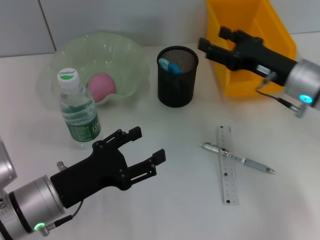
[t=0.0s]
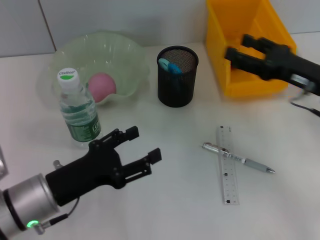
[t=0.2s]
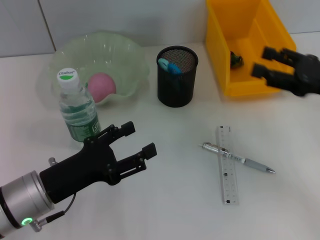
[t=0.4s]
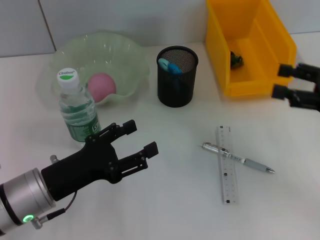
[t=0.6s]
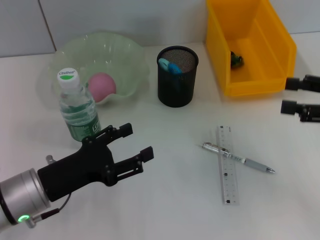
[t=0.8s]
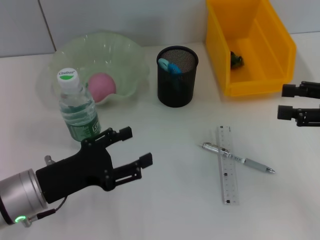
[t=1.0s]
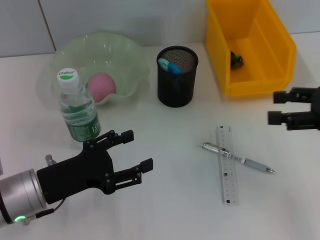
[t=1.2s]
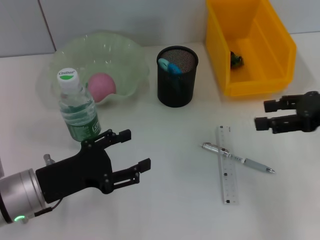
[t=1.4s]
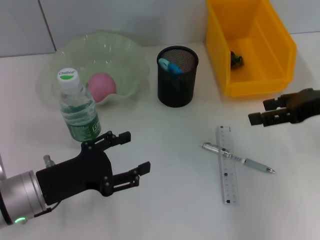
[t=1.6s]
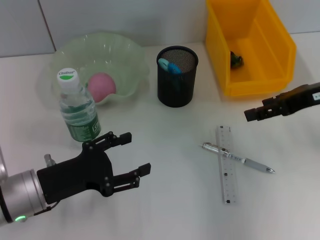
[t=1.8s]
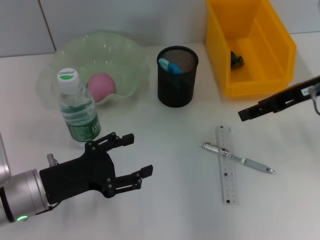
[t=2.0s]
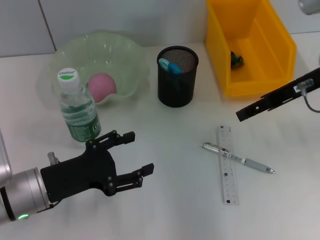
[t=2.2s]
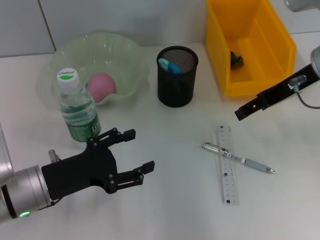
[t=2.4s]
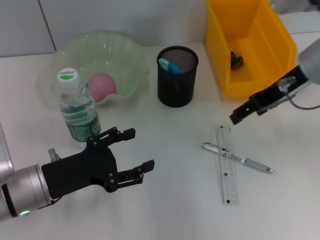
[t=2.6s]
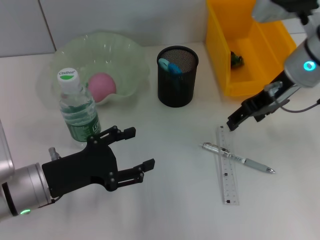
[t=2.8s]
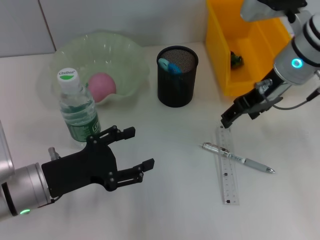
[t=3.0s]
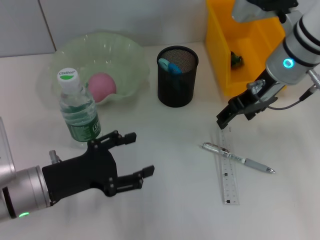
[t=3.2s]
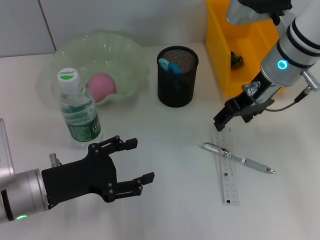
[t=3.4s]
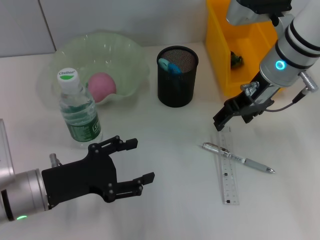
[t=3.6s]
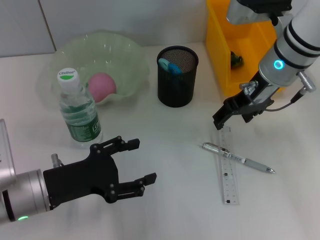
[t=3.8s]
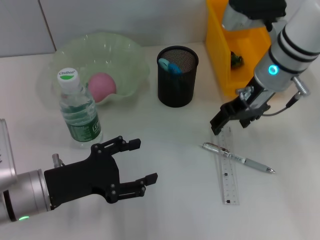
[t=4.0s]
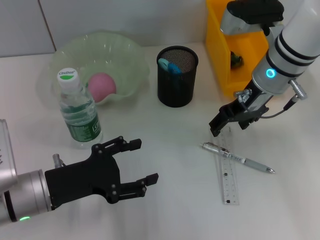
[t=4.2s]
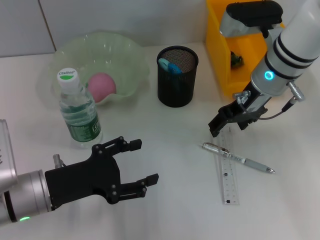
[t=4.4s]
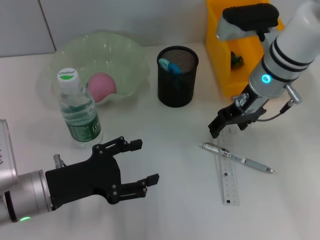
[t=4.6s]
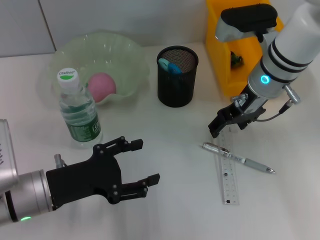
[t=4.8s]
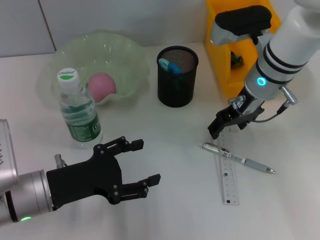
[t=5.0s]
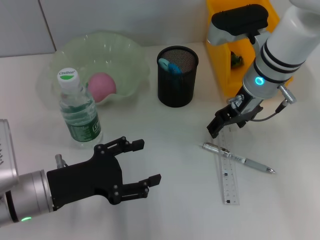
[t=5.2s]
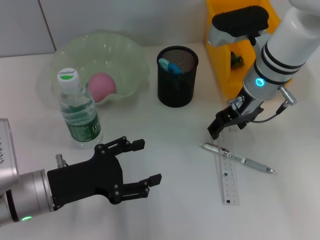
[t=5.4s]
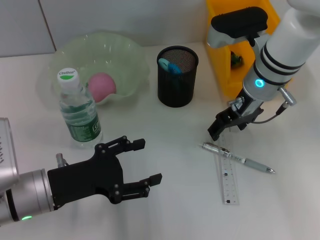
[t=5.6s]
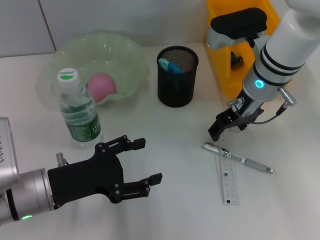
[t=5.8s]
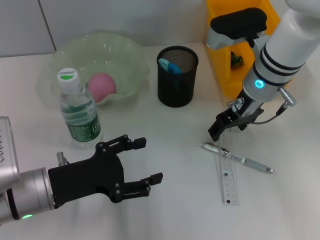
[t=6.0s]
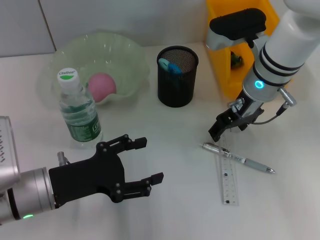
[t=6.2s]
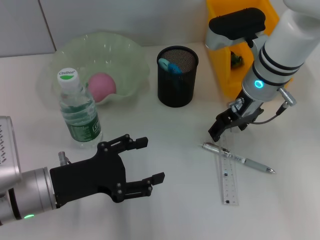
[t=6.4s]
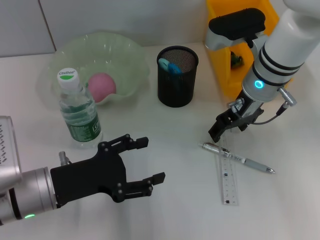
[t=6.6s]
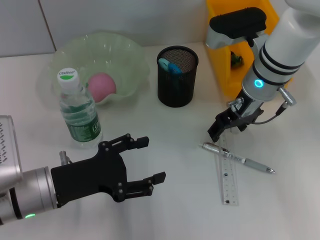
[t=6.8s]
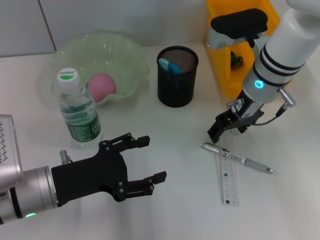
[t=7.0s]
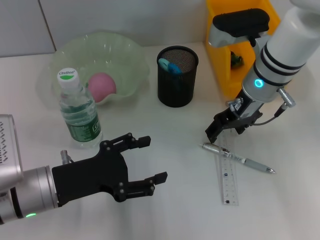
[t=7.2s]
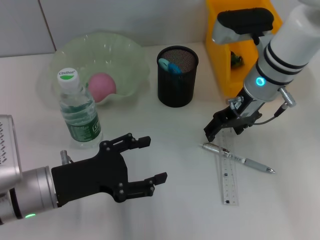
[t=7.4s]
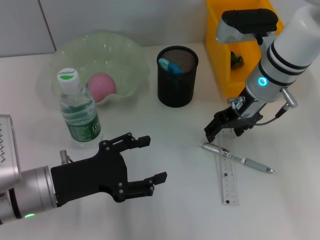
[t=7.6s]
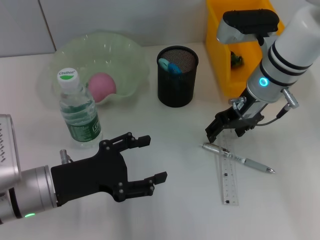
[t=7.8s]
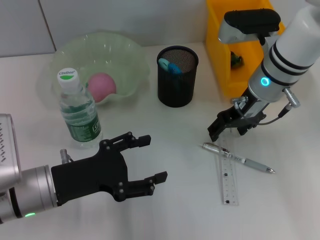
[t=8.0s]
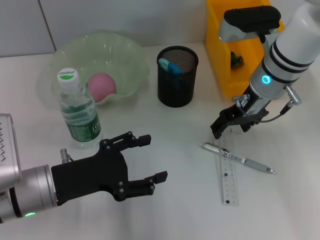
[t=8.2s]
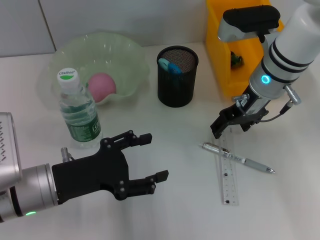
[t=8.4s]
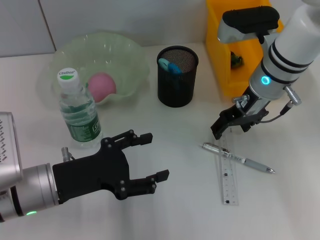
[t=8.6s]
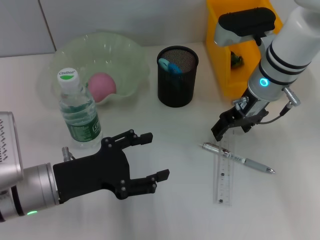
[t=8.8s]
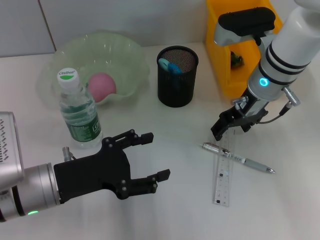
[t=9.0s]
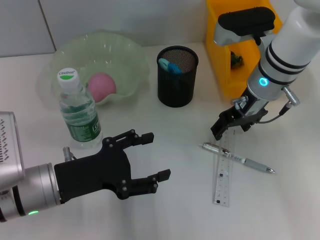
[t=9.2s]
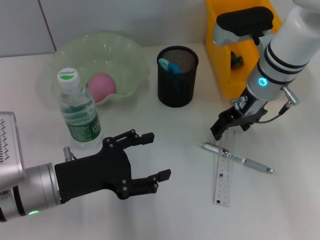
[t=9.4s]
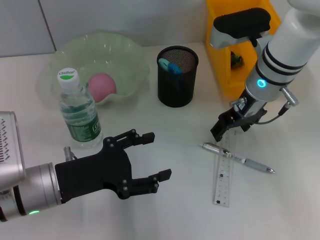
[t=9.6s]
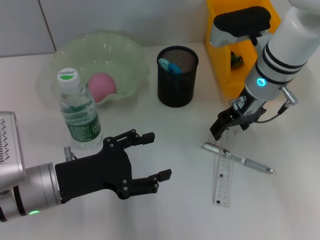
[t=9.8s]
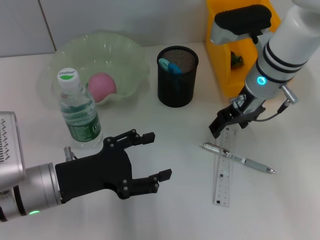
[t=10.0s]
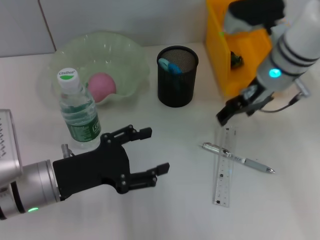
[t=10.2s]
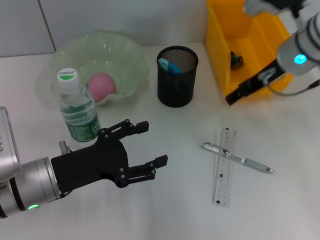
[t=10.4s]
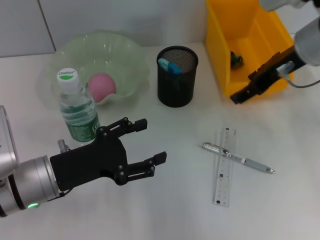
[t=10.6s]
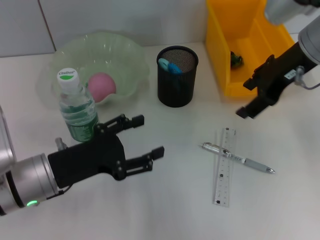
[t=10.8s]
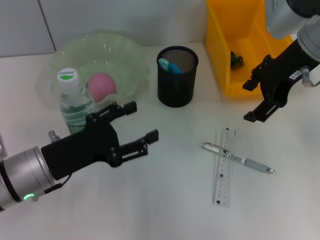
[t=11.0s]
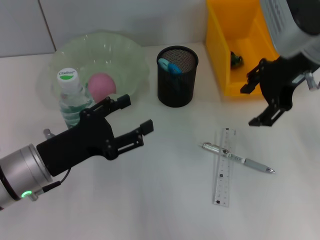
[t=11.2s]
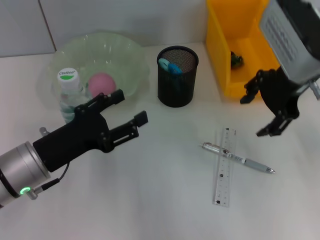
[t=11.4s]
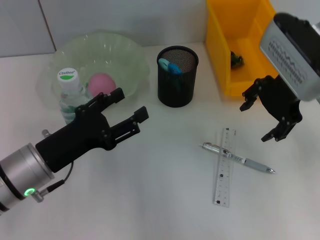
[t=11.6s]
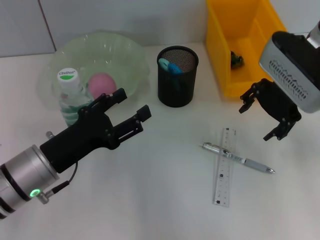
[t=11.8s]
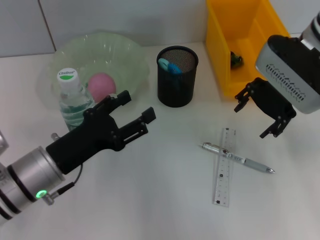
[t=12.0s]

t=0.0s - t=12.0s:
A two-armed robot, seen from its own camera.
t=0.0s - t=1.6s: The right gripper moves upward and to the right, some 10 cm.
t=1.6s - t=3.0s: The right gripper goes some 15 cm to the left and forward.
t=3.0s - t=9.0s: The grippers stay close to where they were, moving slightly.
t=9.0s - t=10.4s: The right gripper moves some 5 cm.

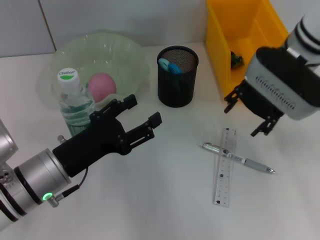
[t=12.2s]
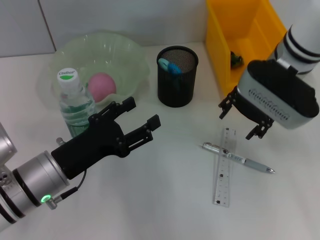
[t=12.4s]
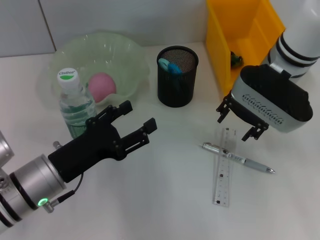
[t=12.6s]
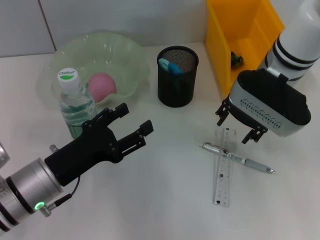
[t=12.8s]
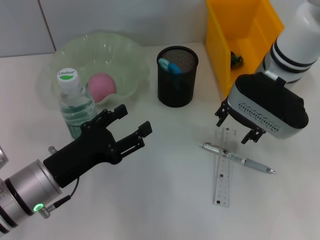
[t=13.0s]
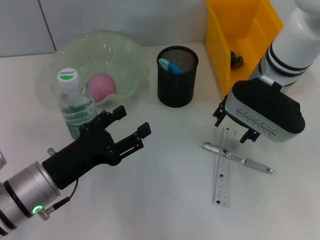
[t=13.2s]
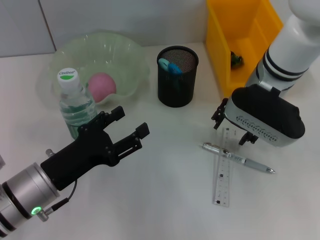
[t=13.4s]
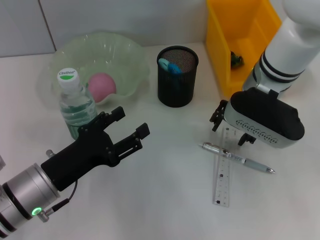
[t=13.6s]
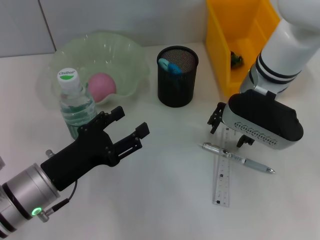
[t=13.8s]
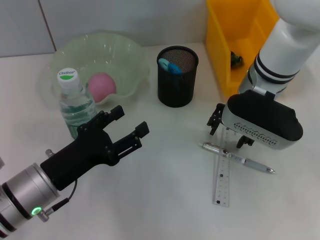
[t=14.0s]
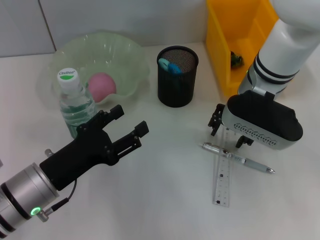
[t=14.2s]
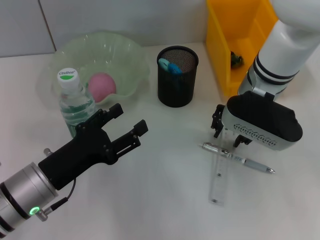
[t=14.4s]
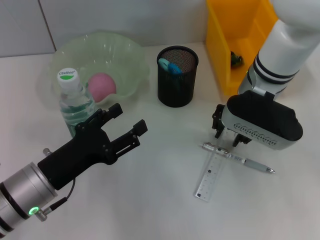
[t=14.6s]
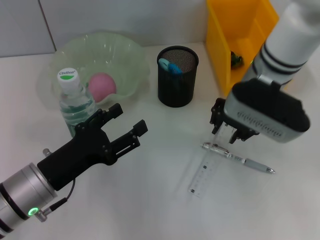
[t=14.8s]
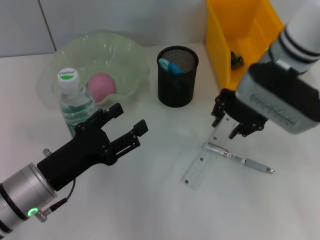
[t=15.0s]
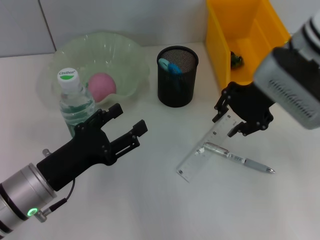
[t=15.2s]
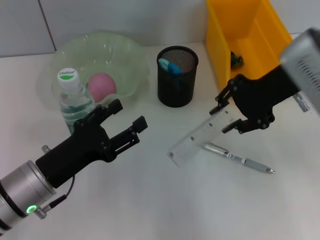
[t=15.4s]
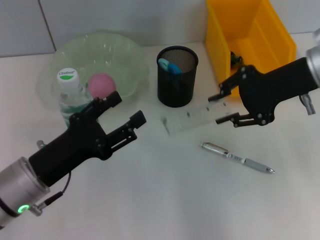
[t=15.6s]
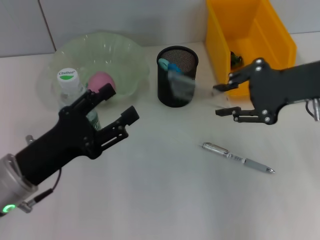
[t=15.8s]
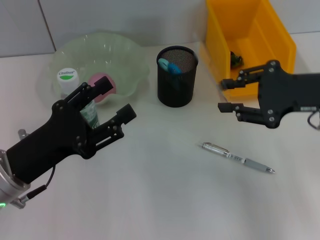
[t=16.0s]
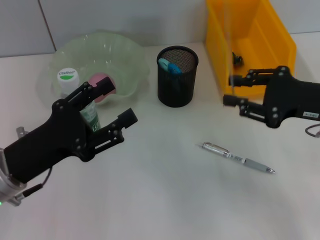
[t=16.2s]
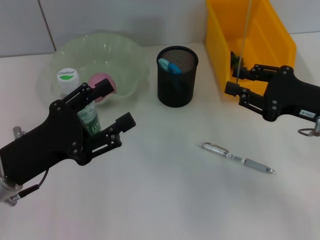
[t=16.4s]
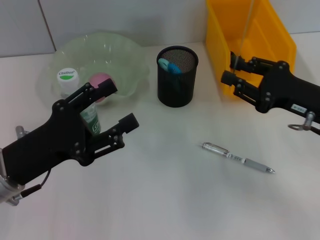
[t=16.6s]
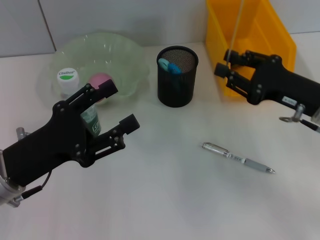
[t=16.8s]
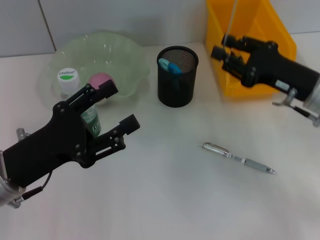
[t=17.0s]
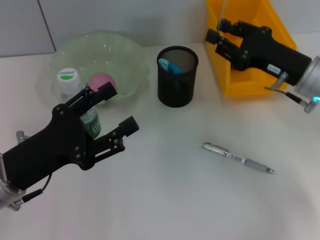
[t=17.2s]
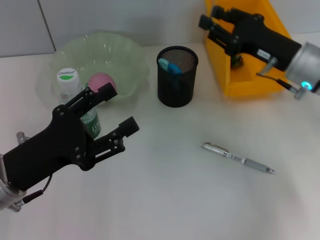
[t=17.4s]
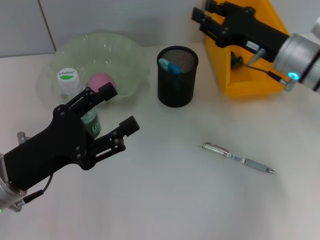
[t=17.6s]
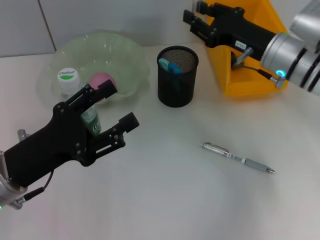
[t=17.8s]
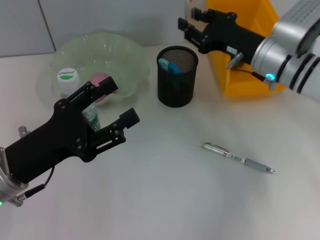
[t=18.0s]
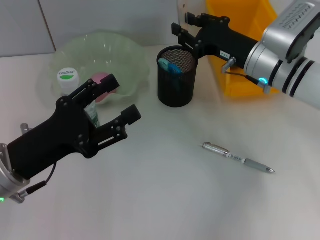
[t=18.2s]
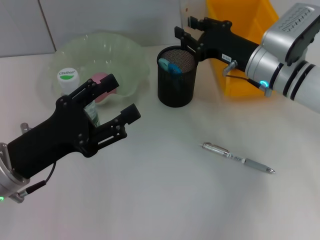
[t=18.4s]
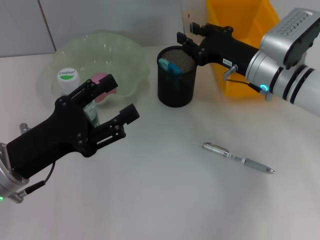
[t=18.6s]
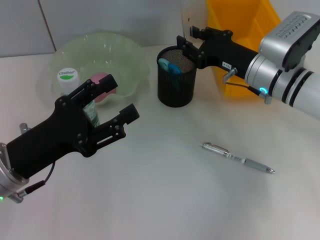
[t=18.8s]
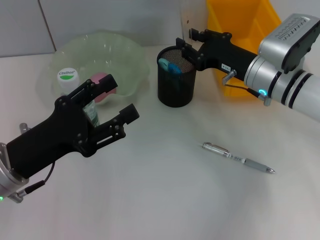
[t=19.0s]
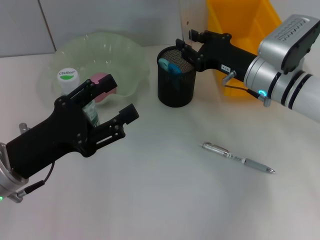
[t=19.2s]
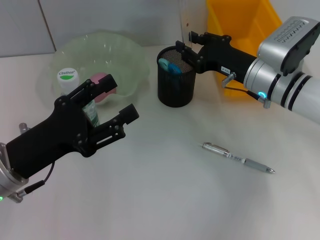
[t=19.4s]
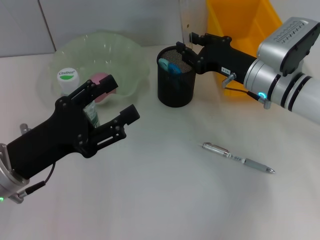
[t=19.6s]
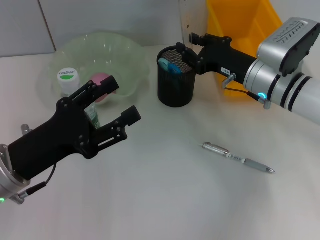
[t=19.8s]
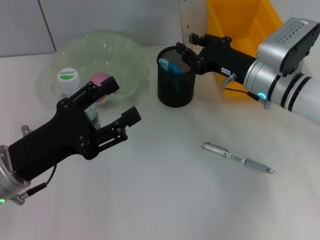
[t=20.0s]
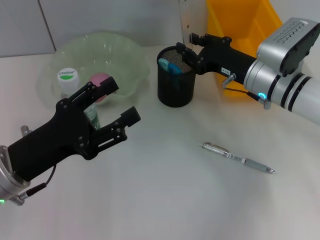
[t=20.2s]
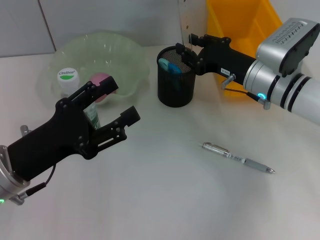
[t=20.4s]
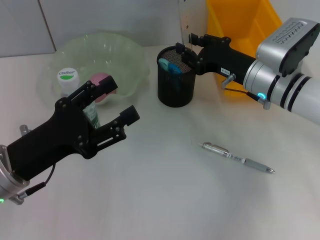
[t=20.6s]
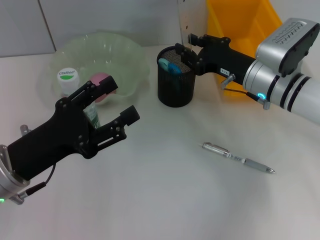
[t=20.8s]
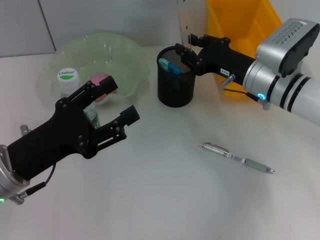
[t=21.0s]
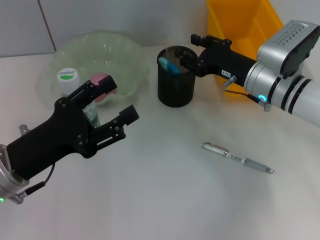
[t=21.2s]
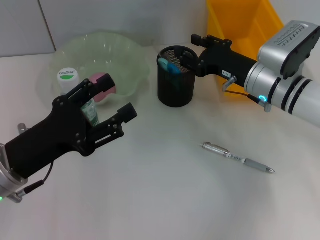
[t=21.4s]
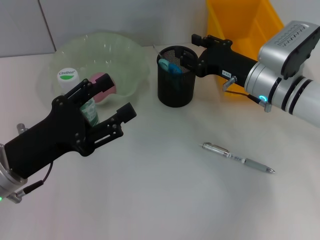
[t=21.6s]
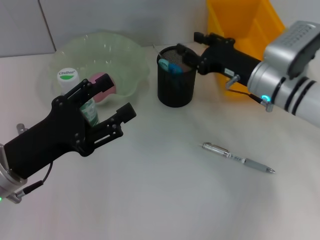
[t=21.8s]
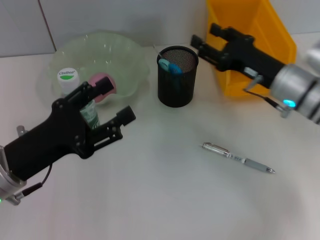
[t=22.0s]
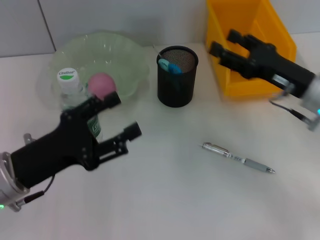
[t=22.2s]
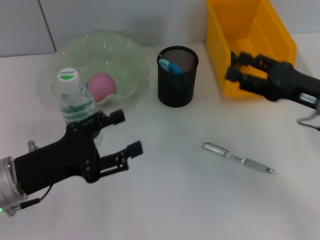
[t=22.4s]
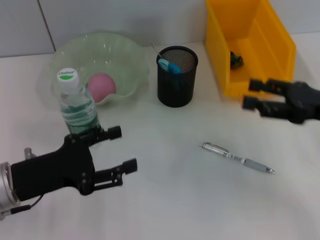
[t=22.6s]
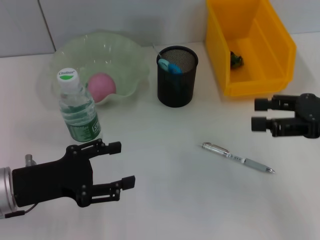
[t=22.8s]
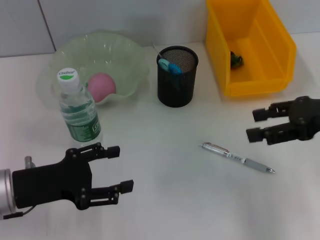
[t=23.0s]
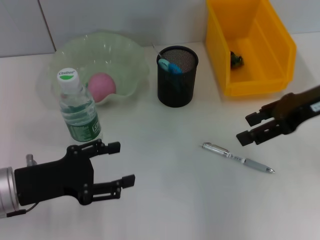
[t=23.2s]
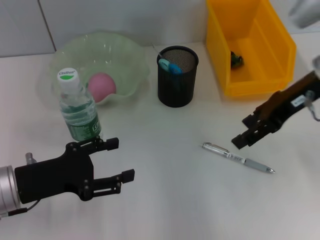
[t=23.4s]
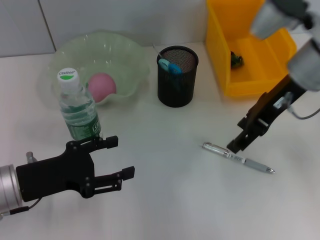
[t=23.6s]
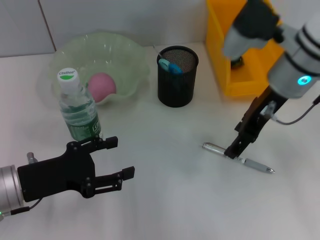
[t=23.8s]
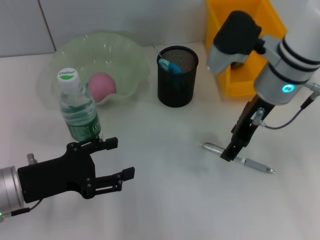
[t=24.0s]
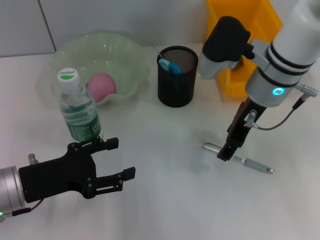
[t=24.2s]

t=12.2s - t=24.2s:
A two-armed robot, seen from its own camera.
Step, t=12.2s - t=14.4s: Grab the ruler with the right hand.
Step, t=14.6s - t=21.4s: Place the ruler into the pen holder with the right hand.
t=12.2s - t=13.8s: The right gripper ends up about 5 cm from where it was.
t=13.8s - t=15.2s: The right gripper travels upward by about 5 cm.
t=15.2s - t=16.6s: The left gripper changes place by about 5 cm; the right gripper travels downward, to the right and backward by roughly 15 cm.
t=16.6s - t=18.2s: The right gripper shifts about 15 cm forward and to the left.
t=18.2s - t=19.8s: The grippers move only a little.
t=19.8s - t=21.2s: Neither gripper changes place.
t=21.2s - t=22.6s: The right gripper shifts roughly 15 cm to the right, backward and upward, and opens.
t=22.6s - t=24.2s: The right gripper is displaced to the left and forward by some 20 cm.
